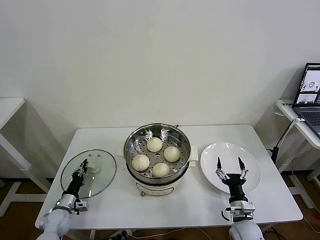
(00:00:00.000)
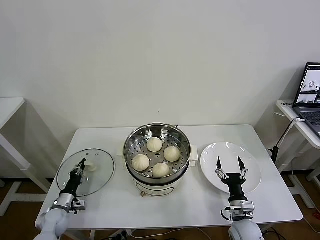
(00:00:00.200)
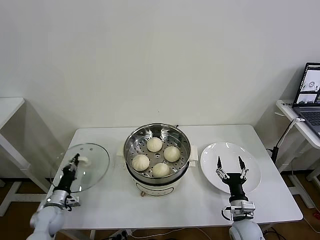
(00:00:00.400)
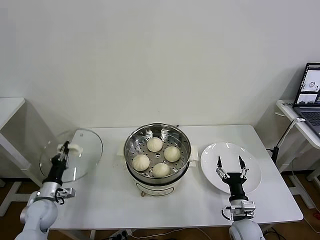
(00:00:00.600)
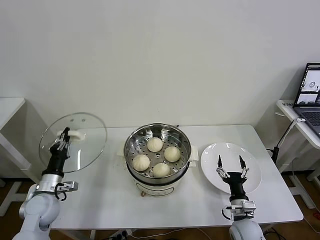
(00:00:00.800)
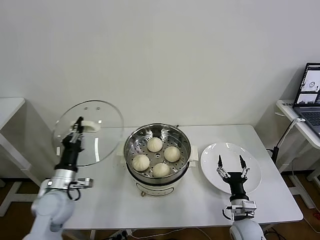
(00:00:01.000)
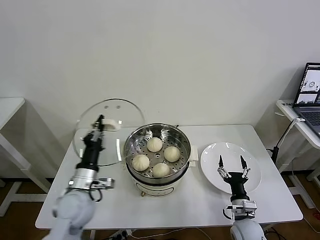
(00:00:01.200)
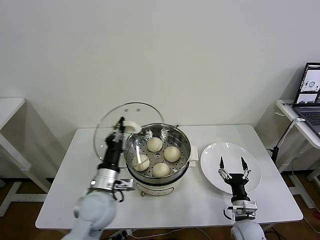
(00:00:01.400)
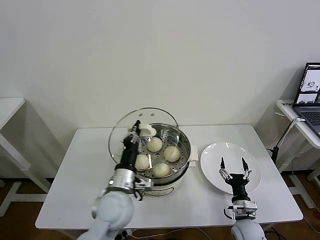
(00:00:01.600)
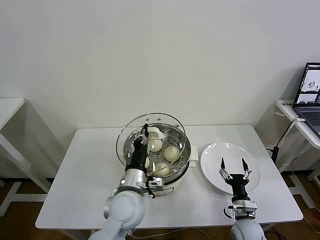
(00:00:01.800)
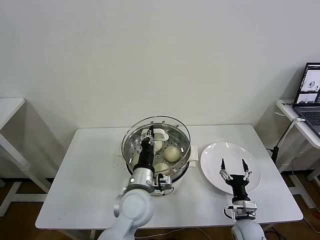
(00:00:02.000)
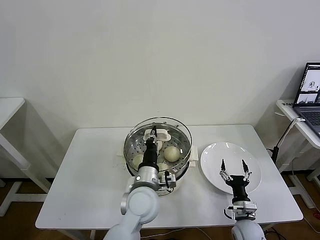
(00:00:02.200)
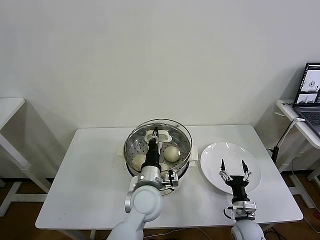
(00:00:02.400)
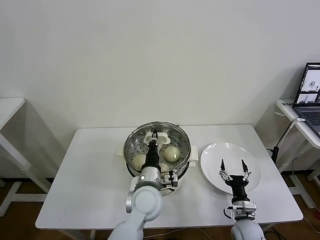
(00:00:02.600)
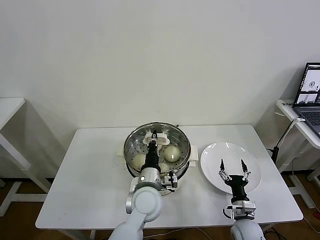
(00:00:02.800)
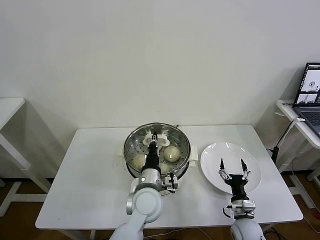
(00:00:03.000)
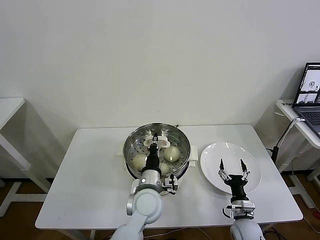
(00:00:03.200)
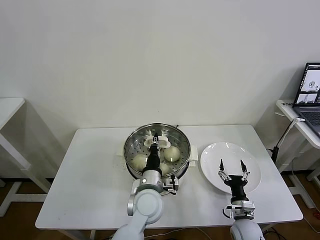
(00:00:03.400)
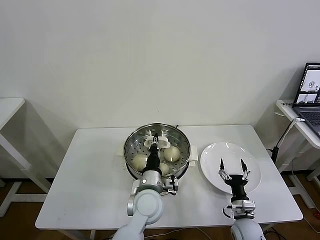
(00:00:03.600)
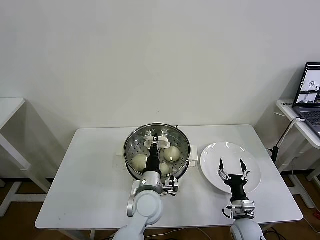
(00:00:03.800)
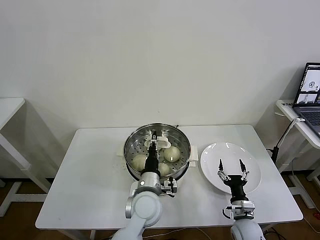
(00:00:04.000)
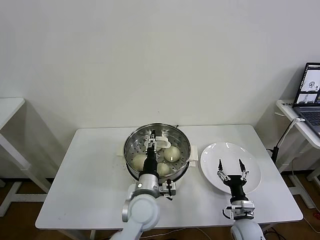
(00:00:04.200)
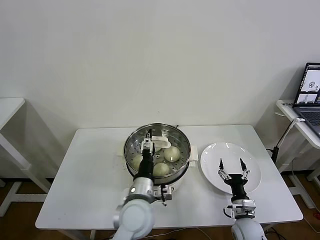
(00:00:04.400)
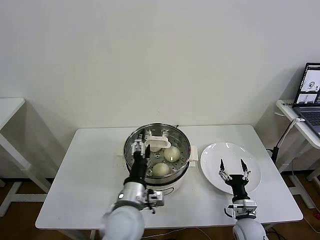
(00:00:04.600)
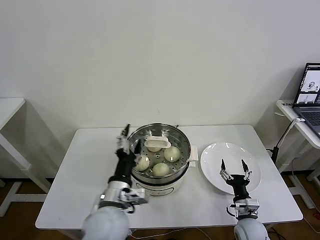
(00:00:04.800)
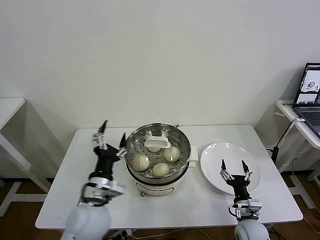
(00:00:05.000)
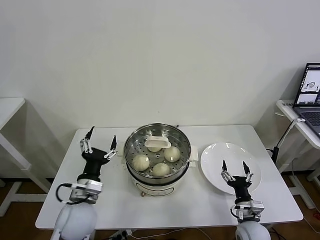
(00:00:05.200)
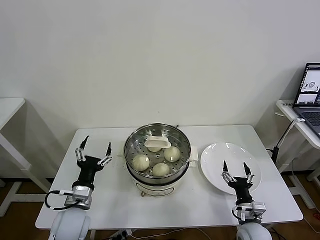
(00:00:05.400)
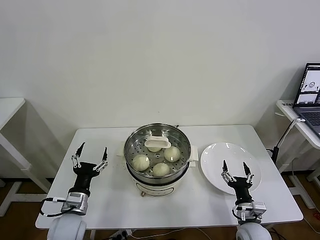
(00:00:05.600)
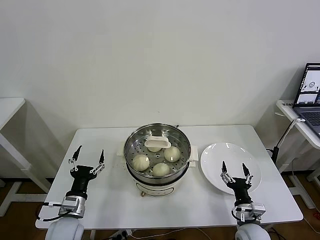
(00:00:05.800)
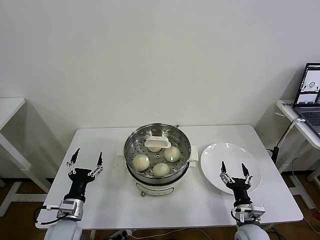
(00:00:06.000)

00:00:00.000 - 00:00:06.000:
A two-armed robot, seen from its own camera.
Task of the whole recording: take steamed baozi put them in steamer then cover it.
Step, 00:00:00.400 - 00:00:04.000: Place the pot lid on the steamer with left gripper.
00:00:00.000 - 00:00:01.600: The left gripper is displaced to the right and upward by approximately 35 cm.
00:00:01.600 - 00:00:03.000: The left gripper travels to the right by some 10 cm.
00:00:03.000 - 00:00:04.400: The left gripper opens up.
00:00:04.400 - 00:00:06.000: The left gripper travels to the left by roughly 25 cm.
